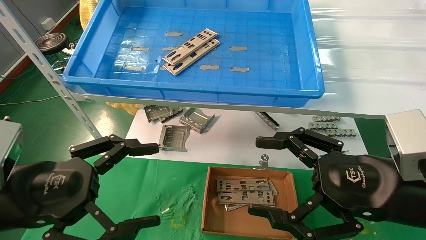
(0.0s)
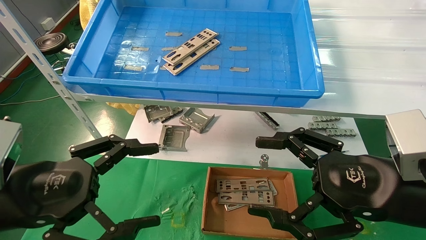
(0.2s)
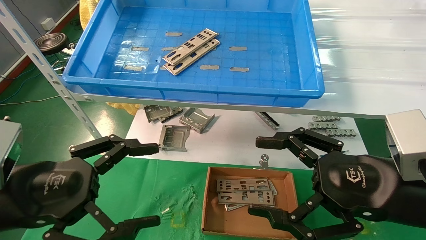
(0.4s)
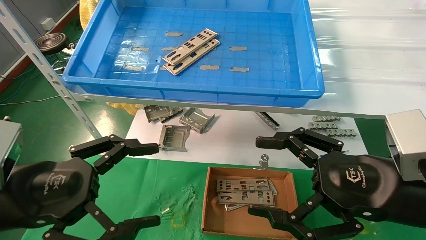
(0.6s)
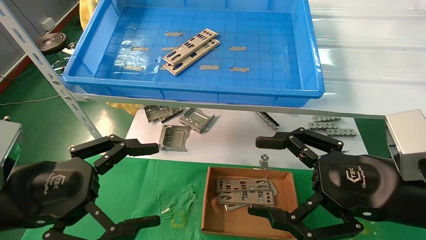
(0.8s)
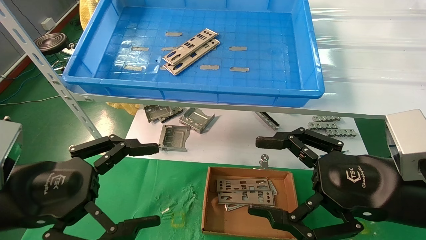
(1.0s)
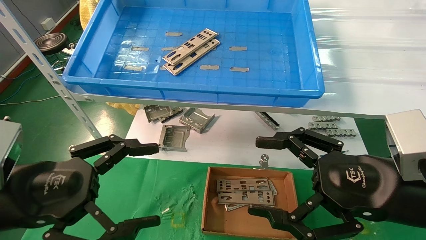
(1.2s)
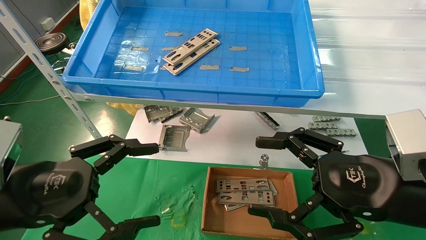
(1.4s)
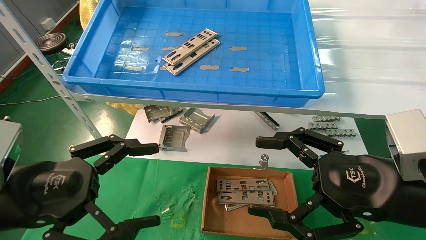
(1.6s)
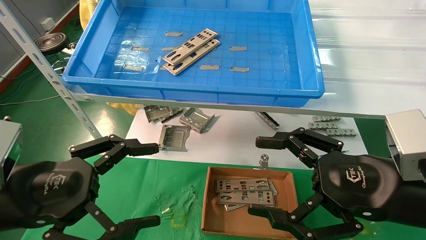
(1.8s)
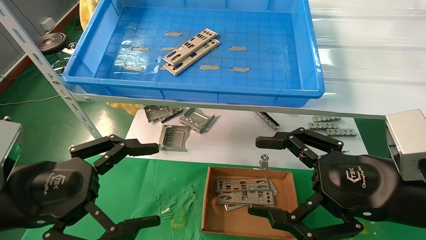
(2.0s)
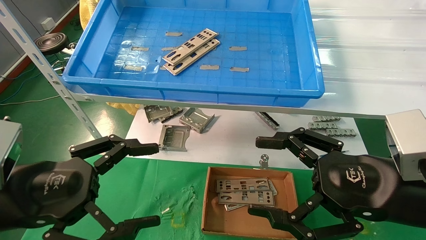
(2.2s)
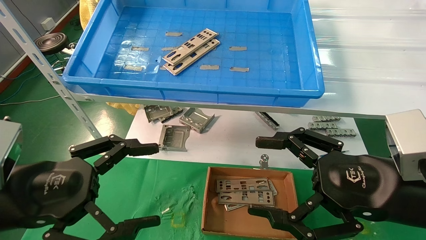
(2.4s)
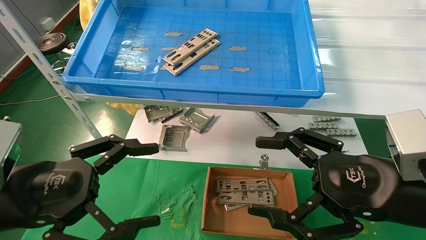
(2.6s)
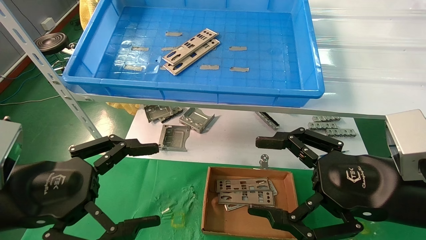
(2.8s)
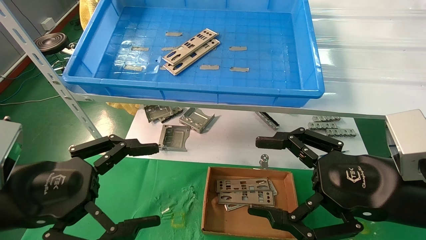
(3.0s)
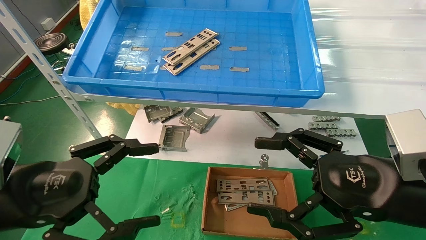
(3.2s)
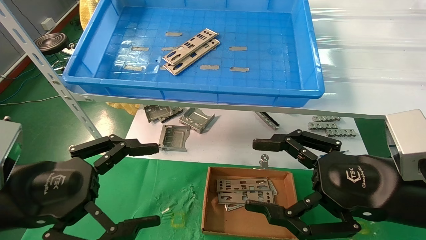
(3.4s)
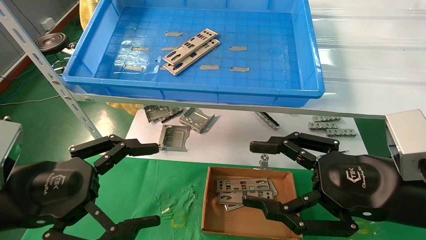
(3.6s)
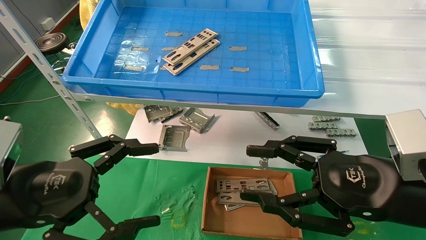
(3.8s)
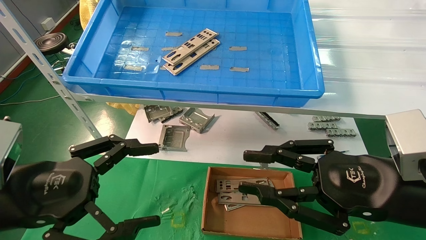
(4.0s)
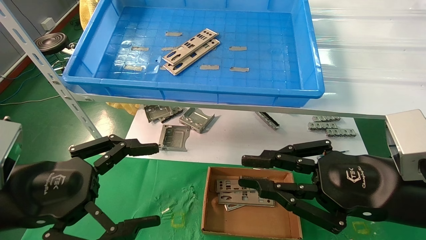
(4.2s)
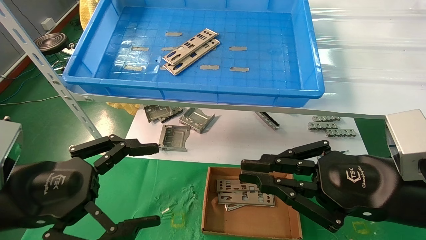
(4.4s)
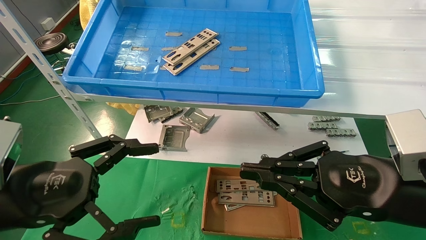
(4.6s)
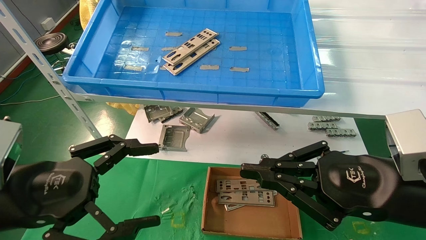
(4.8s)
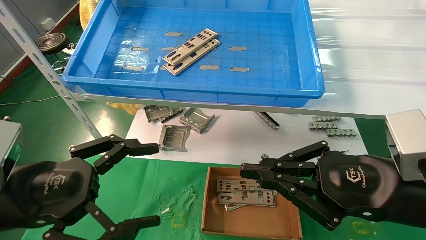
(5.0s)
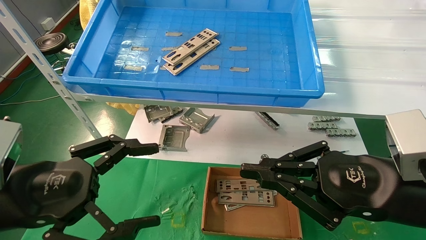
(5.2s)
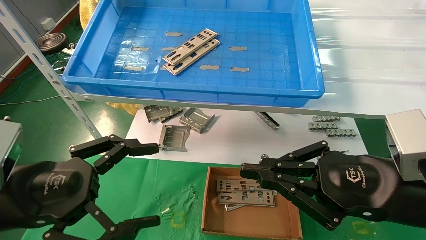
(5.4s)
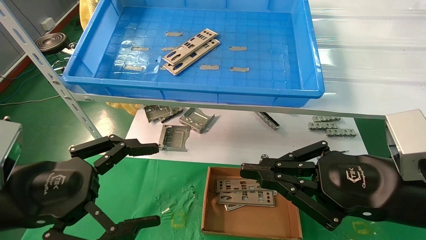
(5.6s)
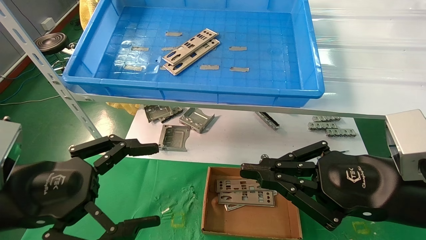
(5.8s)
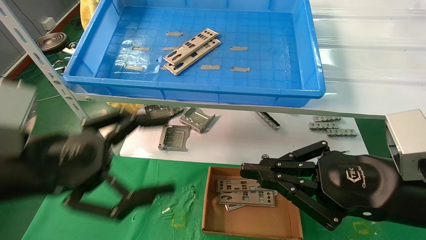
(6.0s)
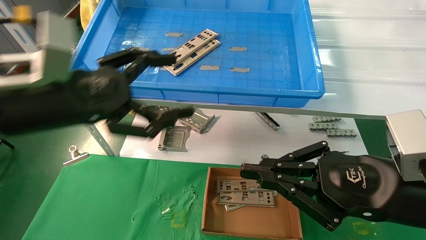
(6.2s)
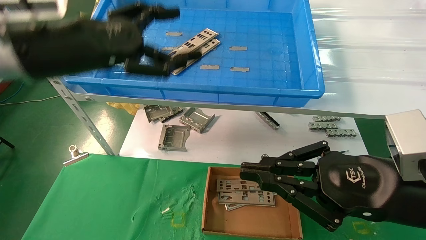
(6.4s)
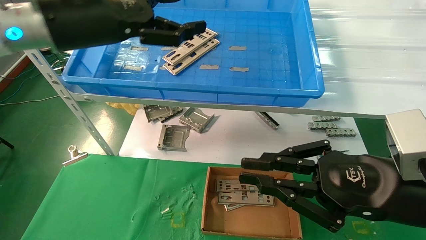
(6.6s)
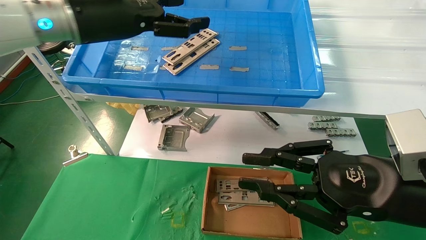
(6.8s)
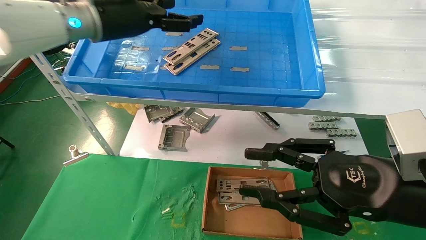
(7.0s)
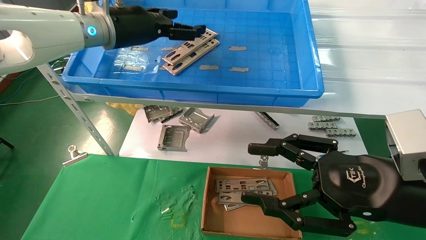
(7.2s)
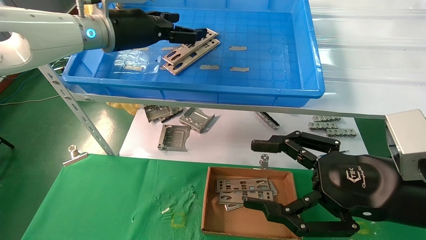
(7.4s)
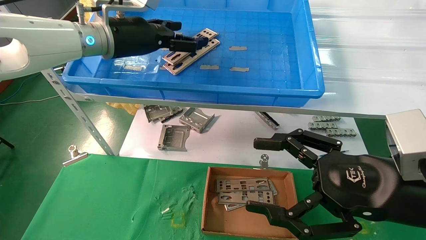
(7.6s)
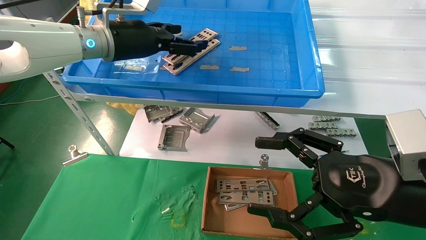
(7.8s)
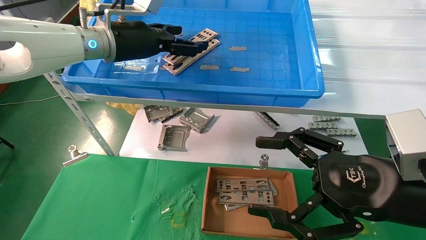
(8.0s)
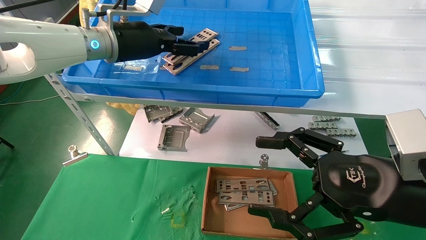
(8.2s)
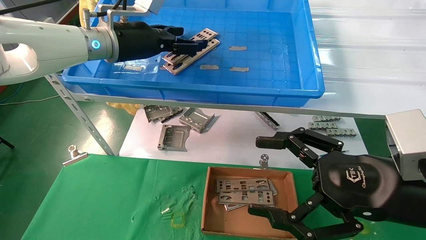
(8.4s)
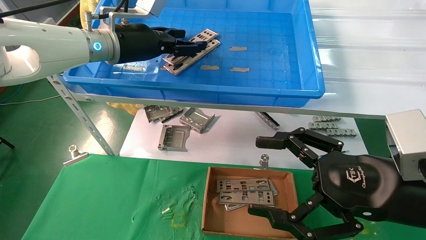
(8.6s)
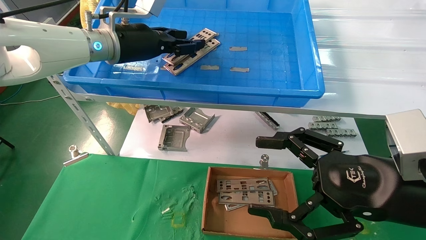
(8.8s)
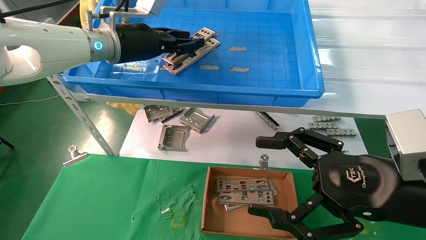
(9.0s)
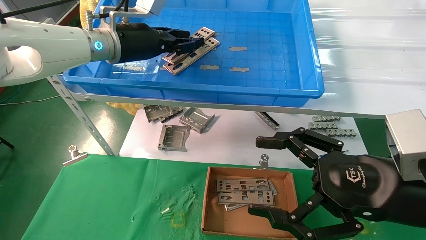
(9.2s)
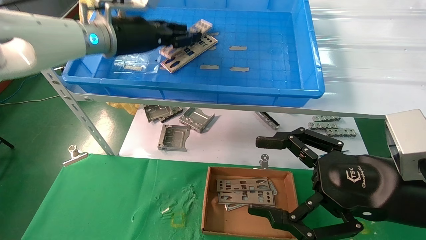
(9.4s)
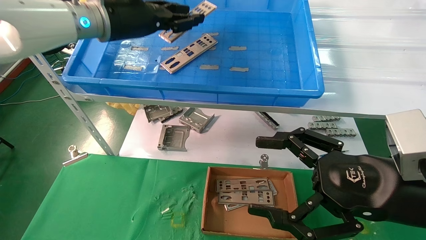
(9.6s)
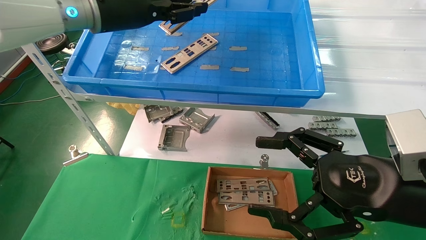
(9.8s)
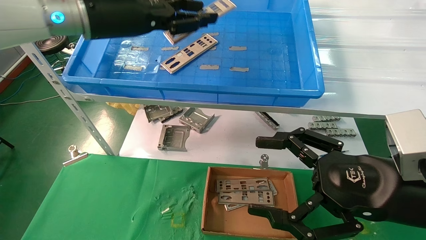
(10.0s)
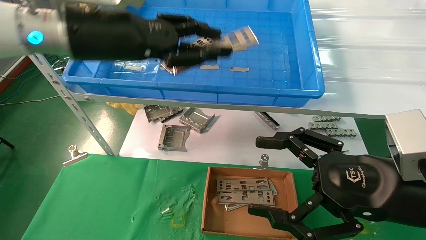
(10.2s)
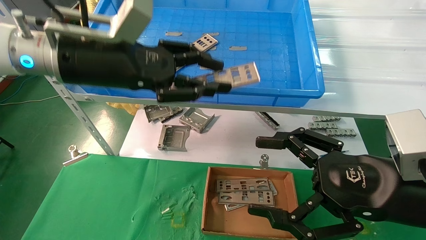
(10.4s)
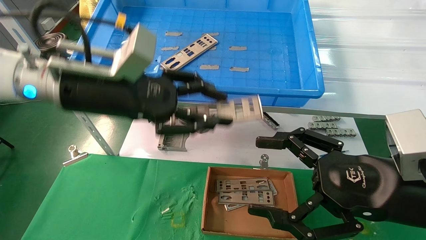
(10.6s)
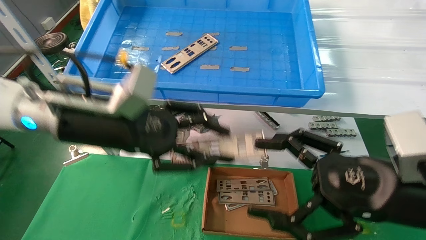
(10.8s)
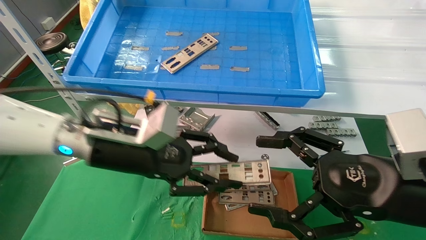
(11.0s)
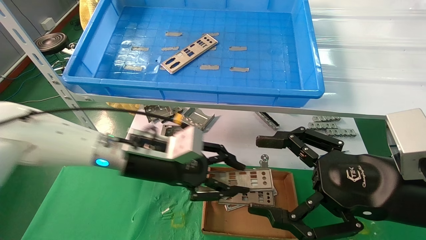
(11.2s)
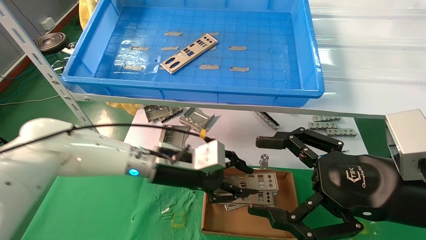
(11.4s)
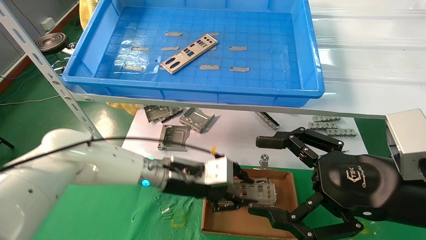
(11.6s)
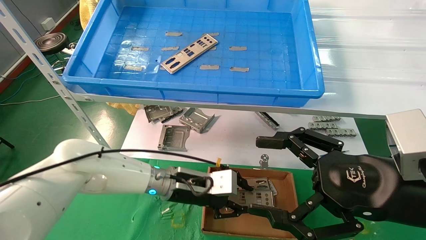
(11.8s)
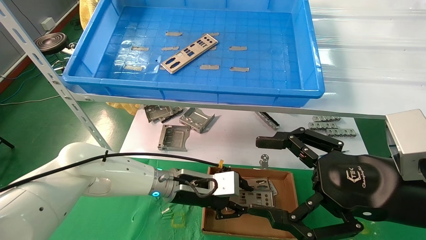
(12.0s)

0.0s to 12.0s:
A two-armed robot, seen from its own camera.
Task of the whole recording: pick up the parts on the tray and put them in the cardboard box.
Step, 6.2s to 9.4s: Pick up the IO bracket from the container box.
0.0s to 3.0s: Neither gripper changes place.
3.0s to 4.4s: The right gripper closes its fingers.
4.4s to 6.0s: The left gripper changes place by roughly 5 cm.
6.0s to 7.6s: The left gripper is displaced forward and upward by some 25 cm. Meanwhile the right gripper opens.
7.6s to 9.0s: The left gripper closes its fingers.
9.0s to 10.4s: The left gripper shifts some 10 cm backward.
10.4s to 12.0s: The left gripper is displaced downward and to the right by some 30 cm.

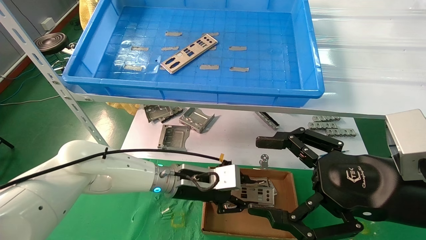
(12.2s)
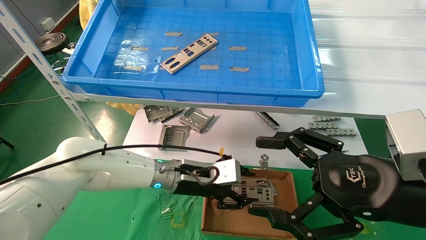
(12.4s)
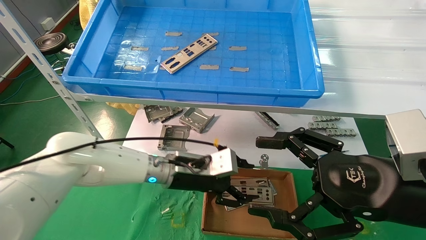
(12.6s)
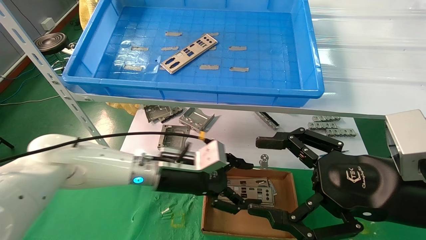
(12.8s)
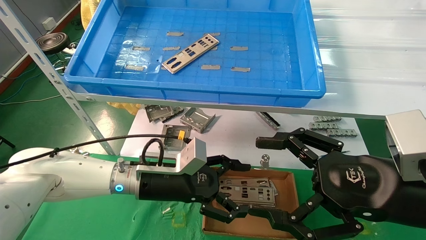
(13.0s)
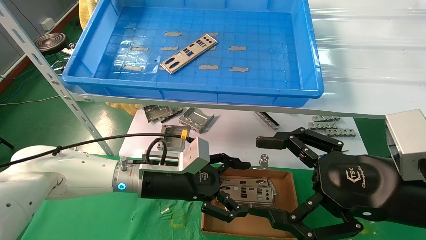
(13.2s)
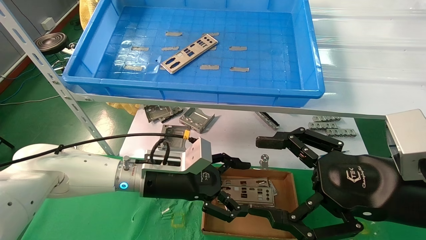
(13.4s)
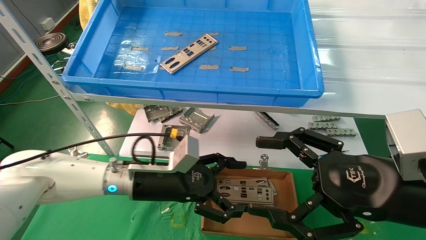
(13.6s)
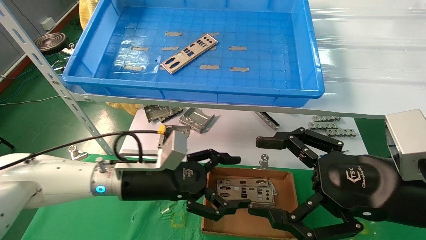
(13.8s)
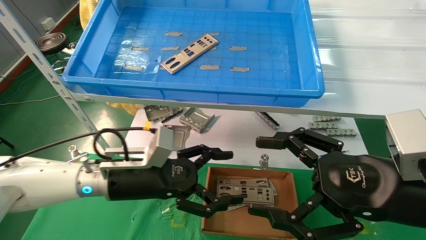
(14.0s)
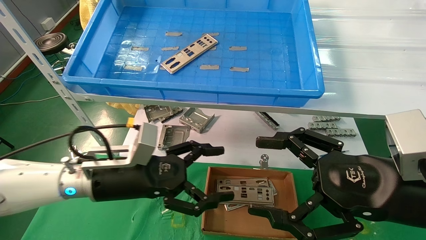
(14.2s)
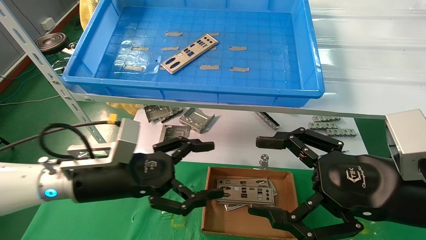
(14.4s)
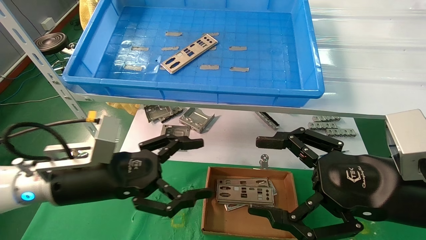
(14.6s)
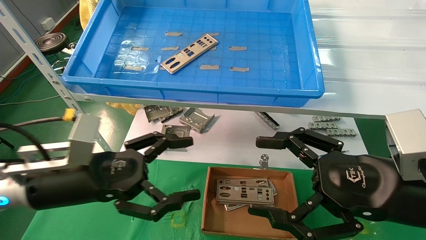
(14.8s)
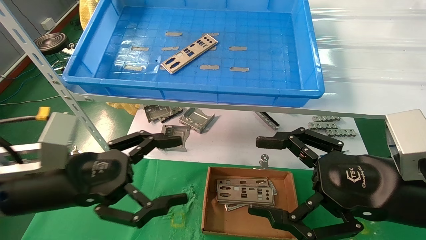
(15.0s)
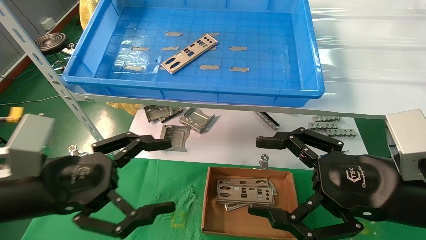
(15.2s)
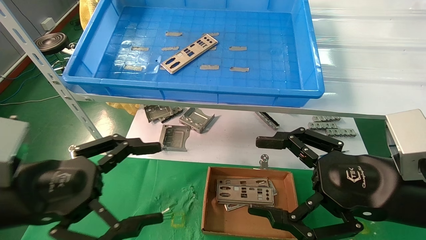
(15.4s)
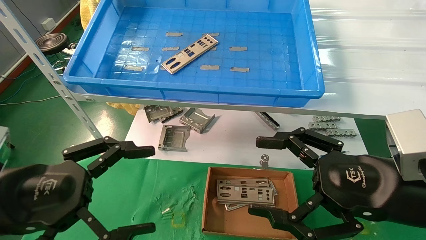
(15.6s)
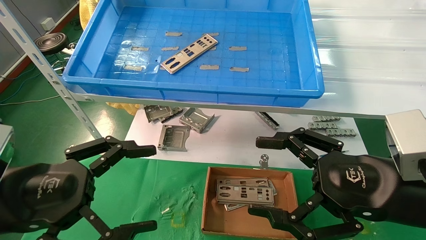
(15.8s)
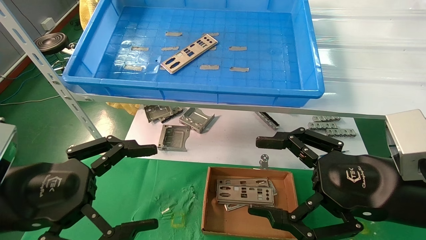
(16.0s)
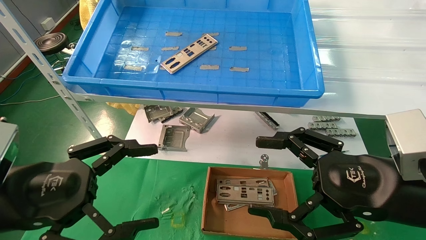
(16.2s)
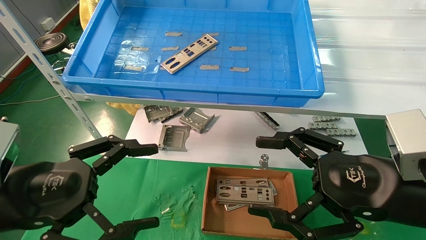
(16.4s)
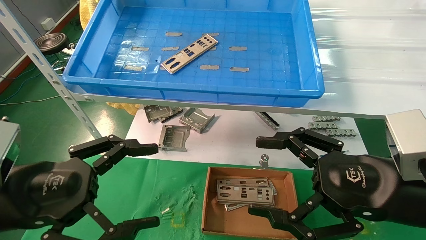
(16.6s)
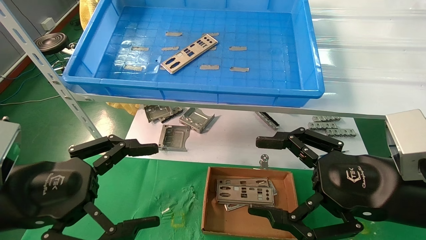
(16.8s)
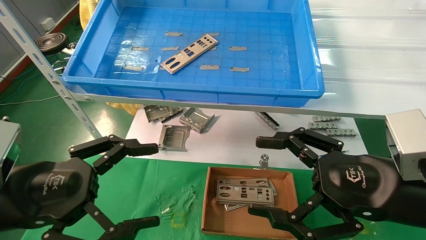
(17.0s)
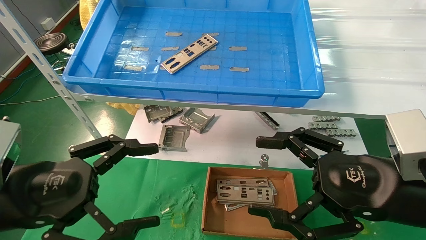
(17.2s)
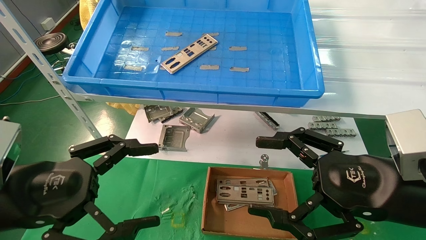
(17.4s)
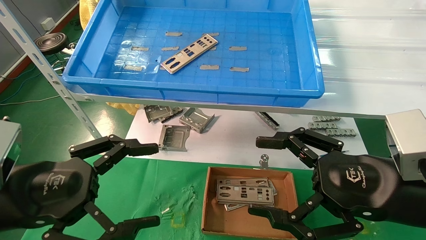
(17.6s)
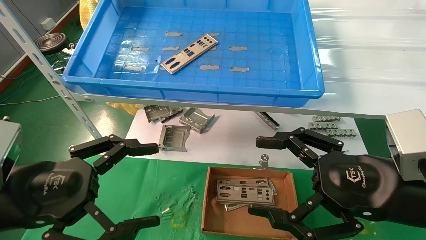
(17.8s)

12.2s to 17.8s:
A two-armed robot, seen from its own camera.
Task of the whole recording: pick up the parts on the tray and put them in the cardboard box.
12.2s to 13.6s: The left gripper heads to the left, covering about 5 cm, and opens its fingers.
13.6s to 15.0s: The left gripper heads to the left, backward and upward, covering approximately 20 cm.
15.0s to 16.4s: The left gripper heads backward, covering roughly 5 cm.
16.4s to 17.8s: Both grippers stay about where they are.
